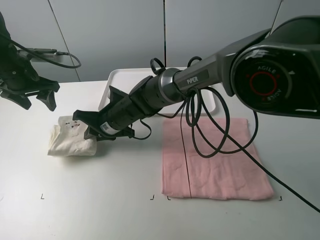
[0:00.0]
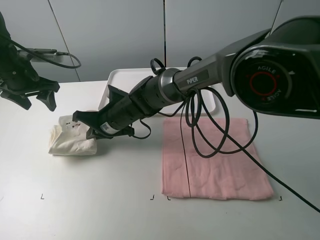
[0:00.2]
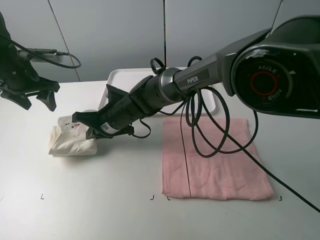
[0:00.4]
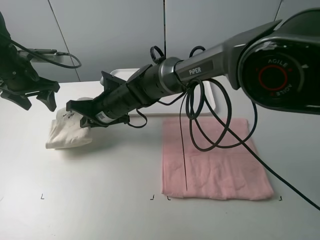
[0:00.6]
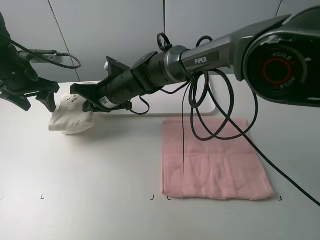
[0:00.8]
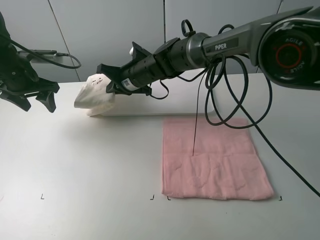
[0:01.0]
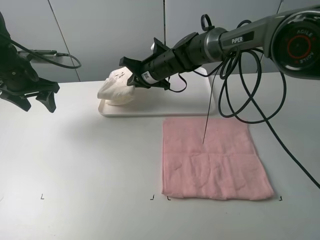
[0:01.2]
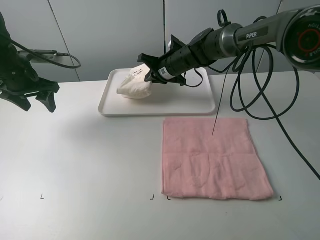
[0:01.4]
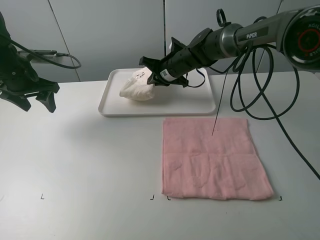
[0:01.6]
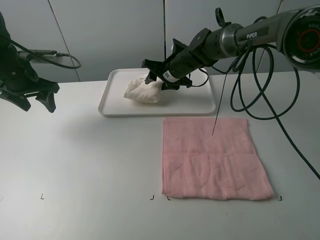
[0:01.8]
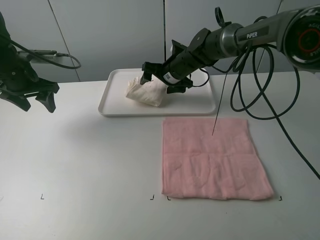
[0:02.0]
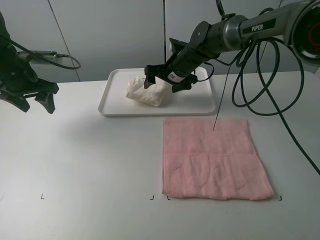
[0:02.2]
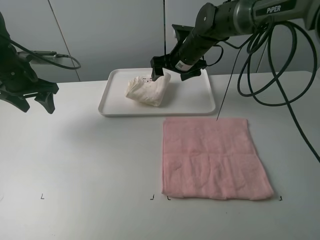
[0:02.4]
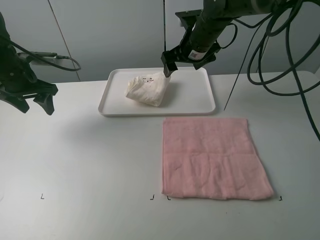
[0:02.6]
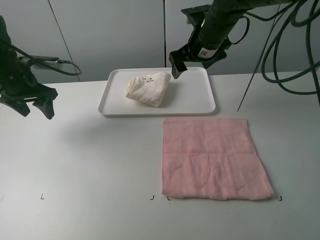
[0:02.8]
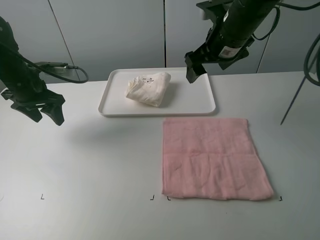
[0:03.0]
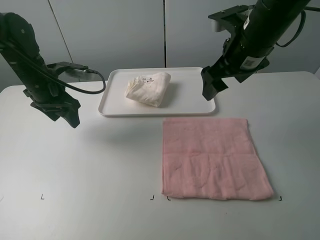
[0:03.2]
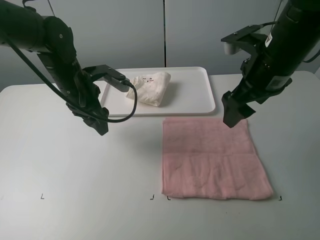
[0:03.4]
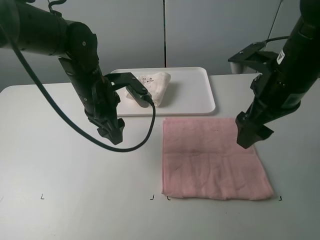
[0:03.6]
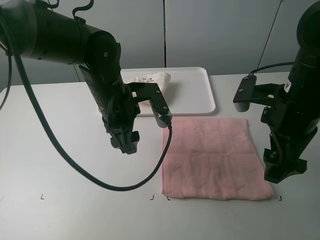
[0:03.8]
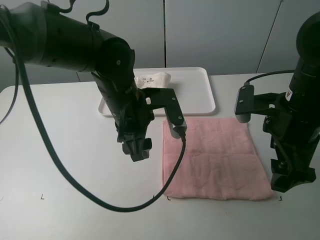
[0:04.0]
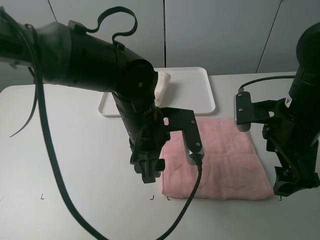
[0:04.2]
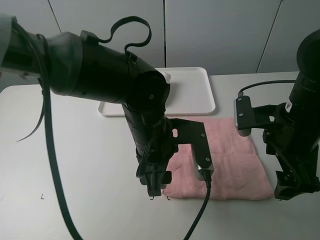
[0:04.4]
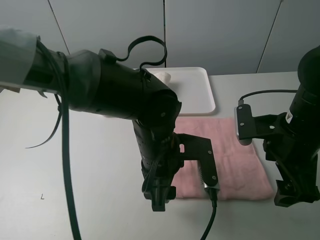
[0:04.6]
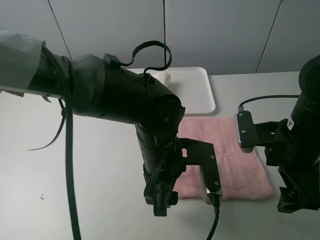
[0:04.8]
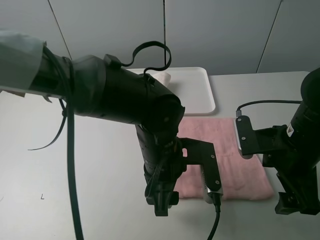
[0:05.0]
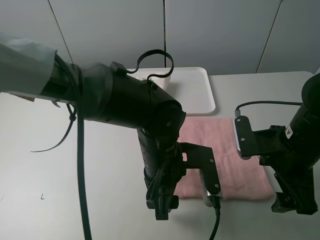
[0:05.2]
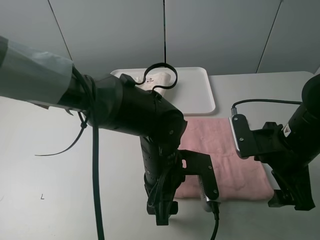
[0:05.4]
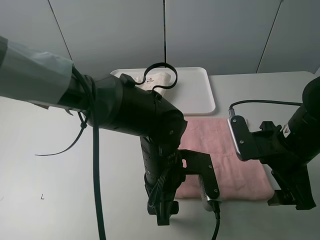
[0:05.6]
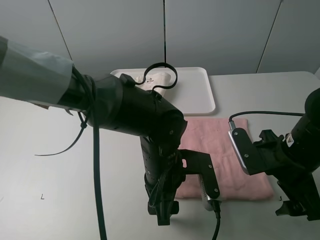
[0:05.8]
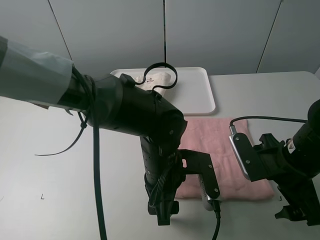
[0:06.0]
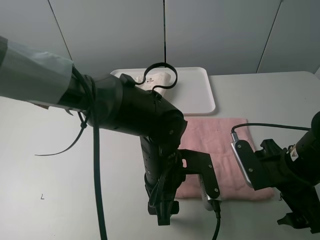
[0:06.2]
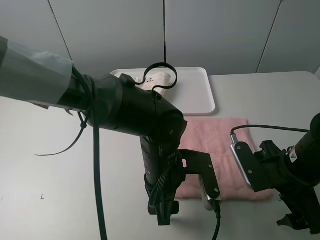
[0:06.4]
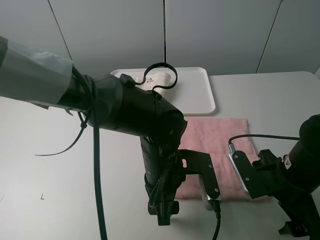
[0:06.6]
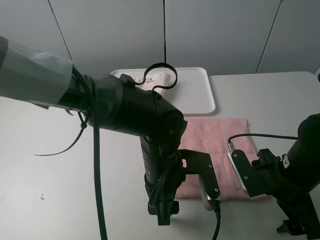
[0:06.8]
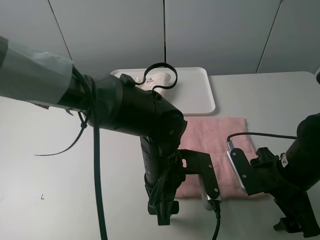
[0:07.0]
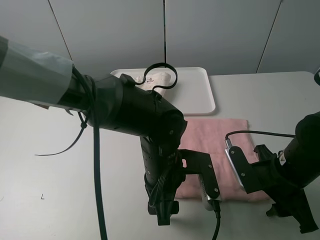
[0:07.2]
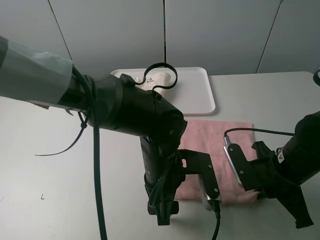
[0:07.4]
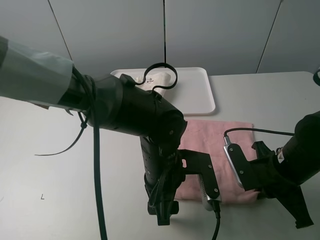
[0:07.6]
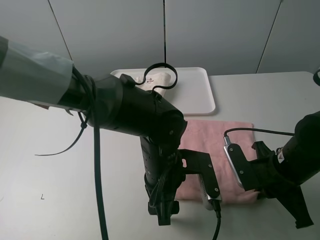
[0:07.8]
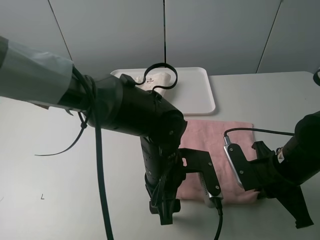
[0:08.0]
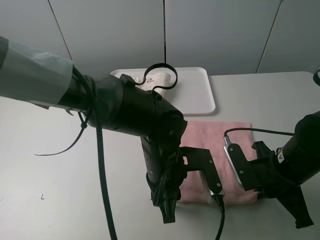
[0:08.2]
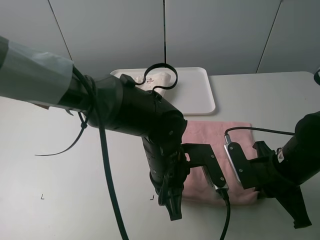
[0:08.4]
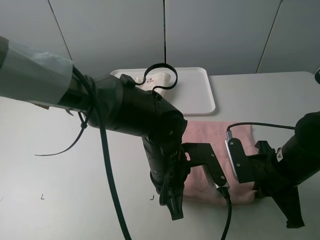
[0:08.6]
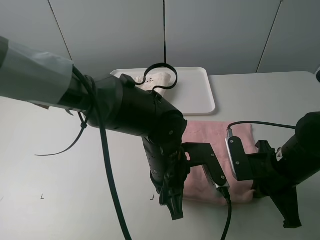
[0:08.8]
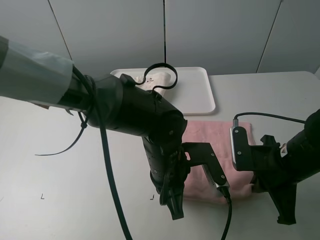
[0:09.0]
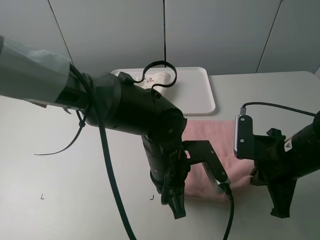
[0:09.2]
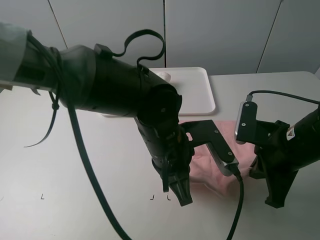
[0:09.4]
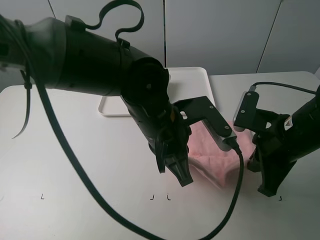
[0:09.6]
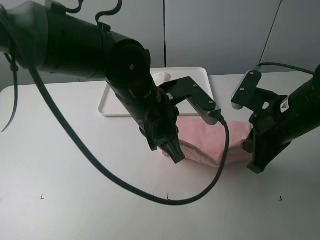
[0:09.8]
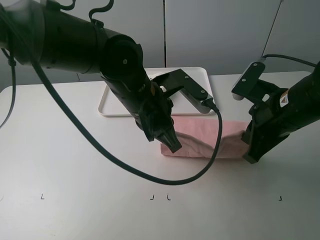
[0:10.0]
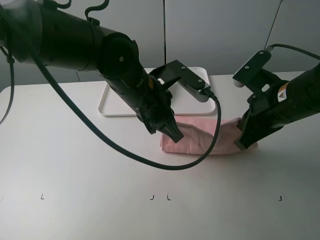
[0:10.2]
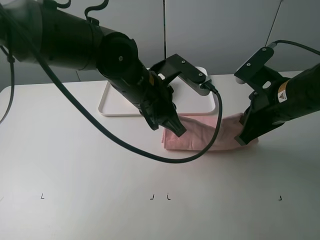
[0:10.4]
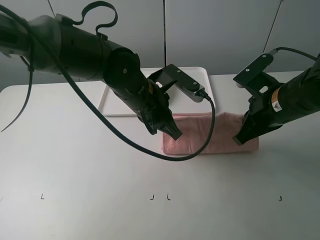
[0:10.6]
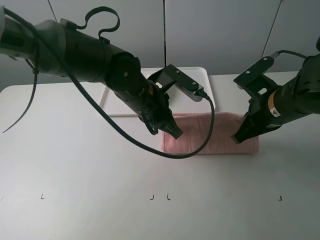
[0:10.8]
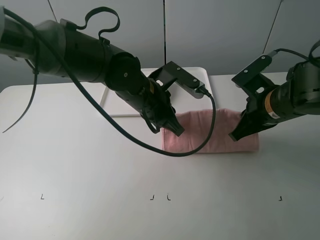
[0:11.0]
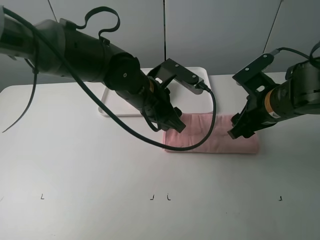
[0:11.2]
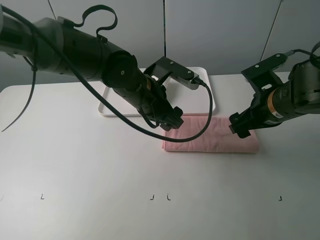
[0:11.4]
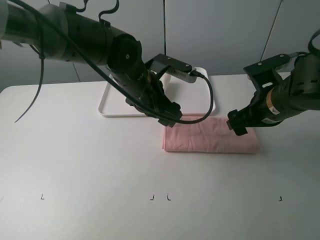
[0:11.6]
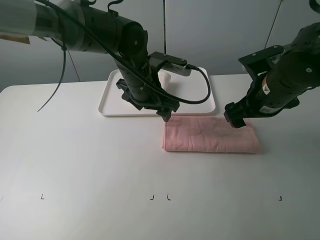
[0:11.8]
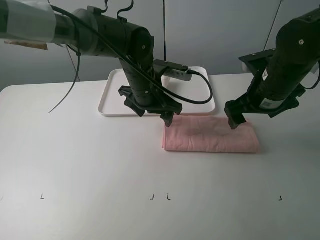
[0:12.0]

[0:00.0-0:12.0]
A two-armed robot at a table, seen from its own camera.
Task of the whole recording: fold one of the towels by two grippers and place it on the tray,then fold another towel by two grippers and place it on the folded towel.
Step, 0:00.0 to 0:02.4: Move the white towel to the plate with the right gripper.
Step, 0:02.6 to 0:08.6: Grasp the pink towel with the left gripper.
Step, 0:08.8 to 0:11.4: Fold the pink towel upwards with the left gripper.
0:00.0 to 0:01.6: The right gripper is displaced to the right and forward by roughly 20 cm.
0:01.6 to 0:03.0: The right gripper goes some 20 cm upward, backward and to the right, and opens.
0:03.0 to 0:04.4: The right gripper goes roughly 15 cm backward, downward and to the right. The left gripper travels to the right and backward by some 30 cm.
0:04.4 to 0:06.0: The left gripper changes place by roughly 5 cm, while the right gripper shifts about 5 cm downward.
0:06.0 to 0:07.6: The right gripper closes its fingers.
0:07.6 to 0:09.0: The left gripper closes its fingers.
0:09.0 to 0:10.4: Both grippers move upward and forward, roughly 10 cm.
0:10.4 to 0:12.0: Both grippers move forward, approximately 5 cm. The left gripper opens its fingers; the right gripper opens up.

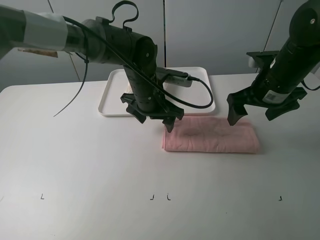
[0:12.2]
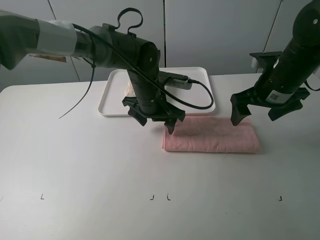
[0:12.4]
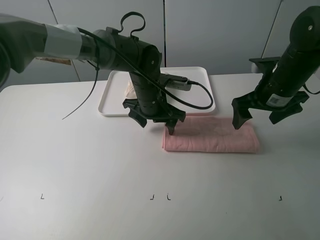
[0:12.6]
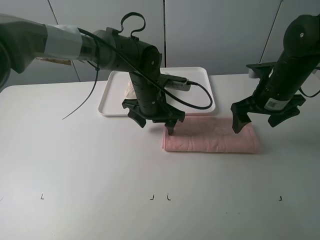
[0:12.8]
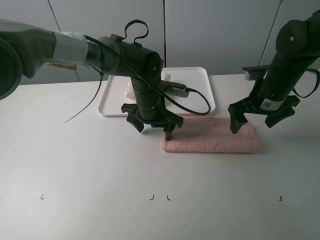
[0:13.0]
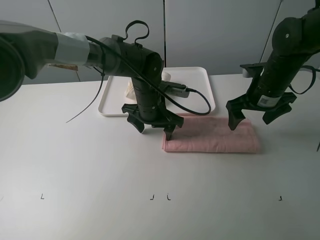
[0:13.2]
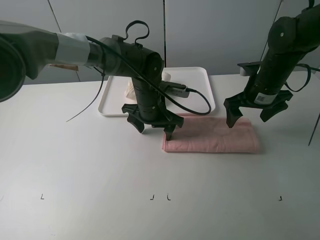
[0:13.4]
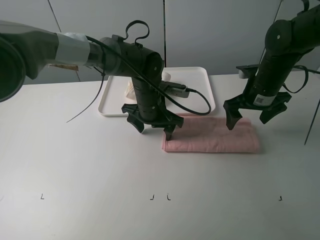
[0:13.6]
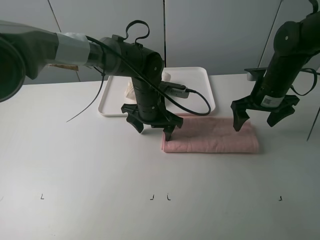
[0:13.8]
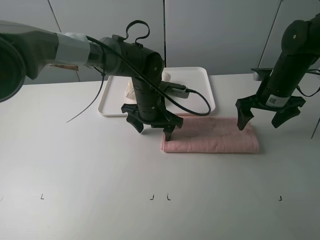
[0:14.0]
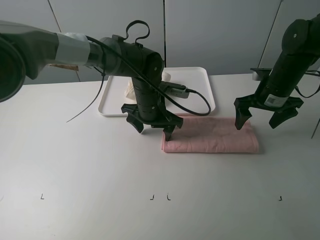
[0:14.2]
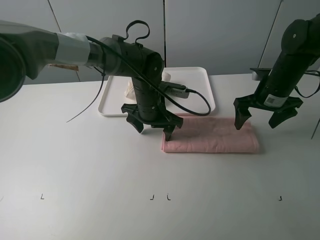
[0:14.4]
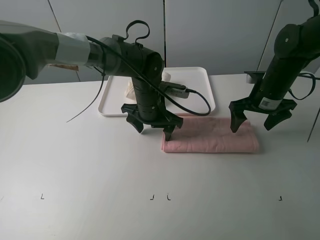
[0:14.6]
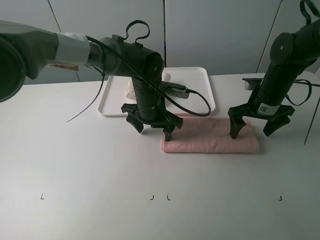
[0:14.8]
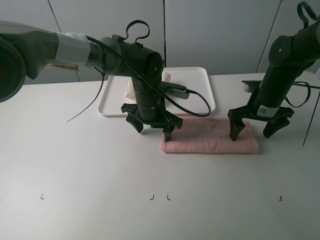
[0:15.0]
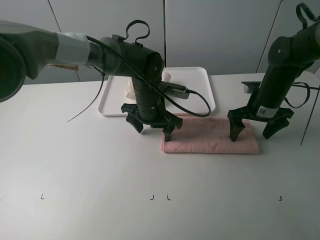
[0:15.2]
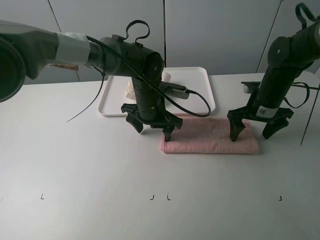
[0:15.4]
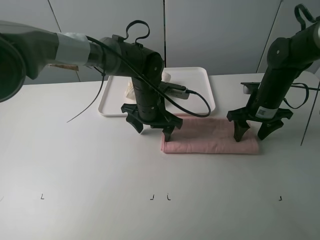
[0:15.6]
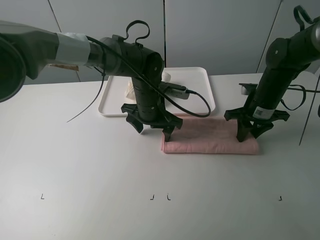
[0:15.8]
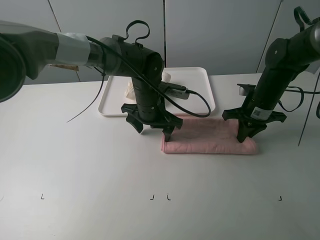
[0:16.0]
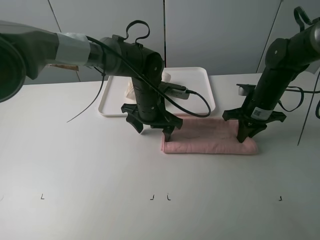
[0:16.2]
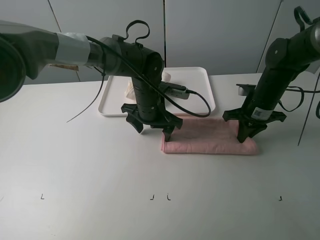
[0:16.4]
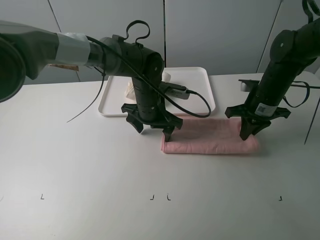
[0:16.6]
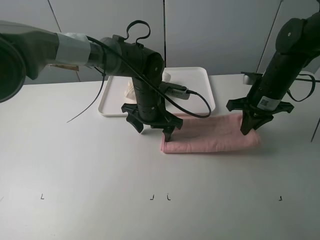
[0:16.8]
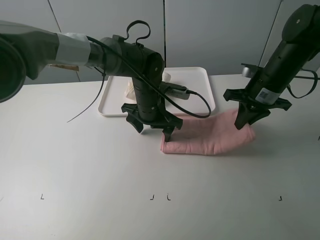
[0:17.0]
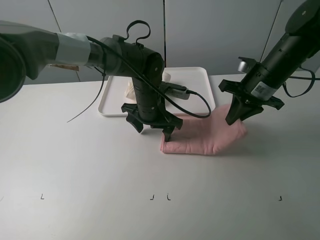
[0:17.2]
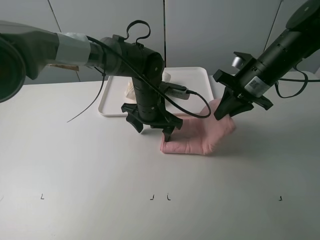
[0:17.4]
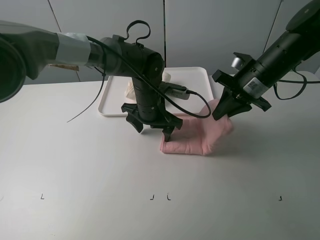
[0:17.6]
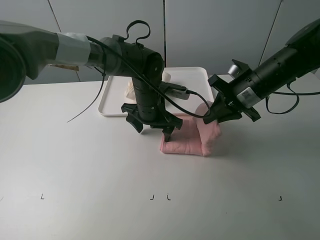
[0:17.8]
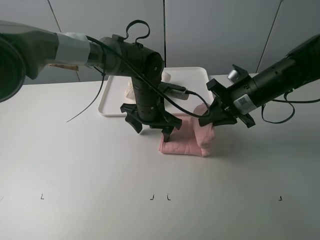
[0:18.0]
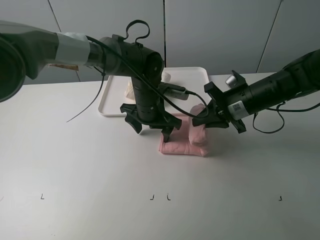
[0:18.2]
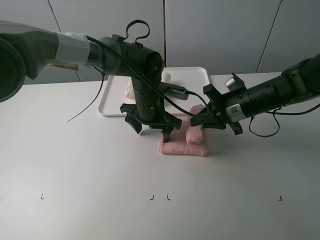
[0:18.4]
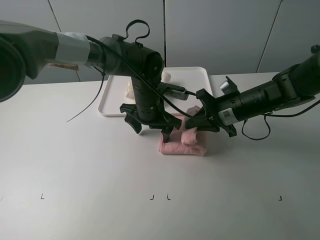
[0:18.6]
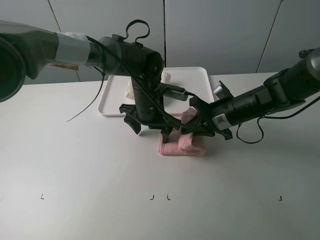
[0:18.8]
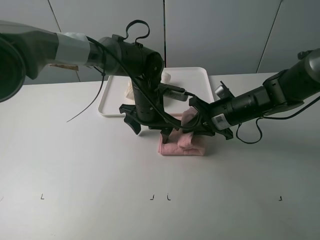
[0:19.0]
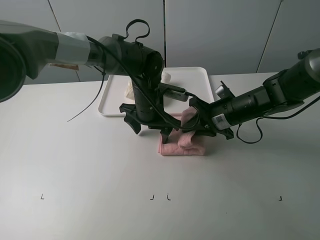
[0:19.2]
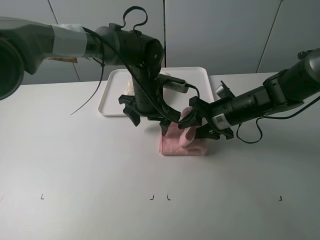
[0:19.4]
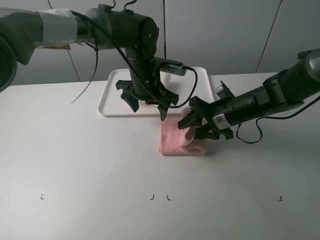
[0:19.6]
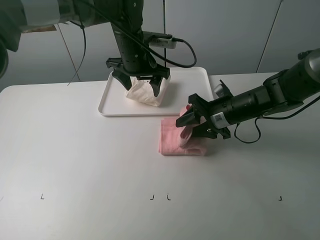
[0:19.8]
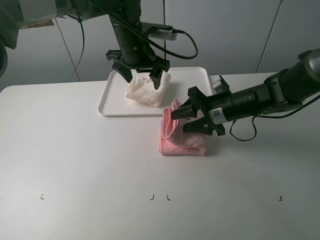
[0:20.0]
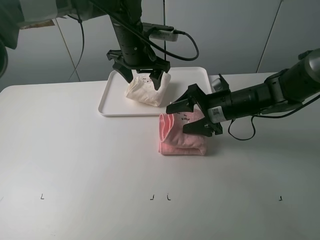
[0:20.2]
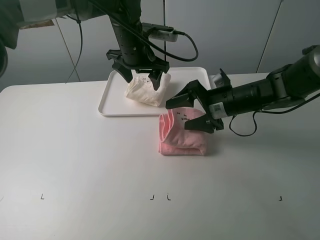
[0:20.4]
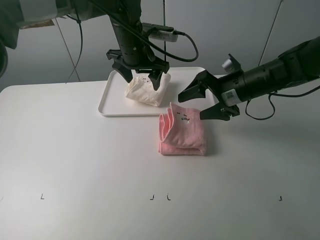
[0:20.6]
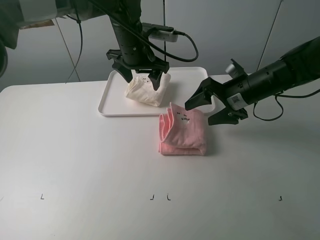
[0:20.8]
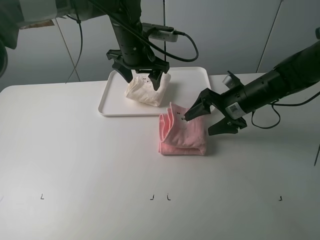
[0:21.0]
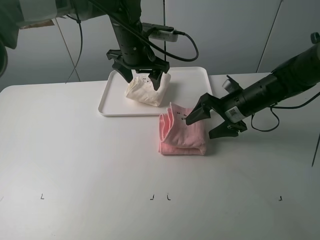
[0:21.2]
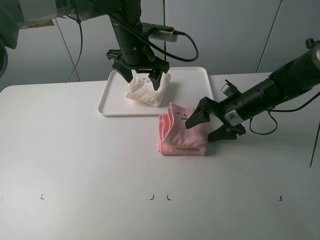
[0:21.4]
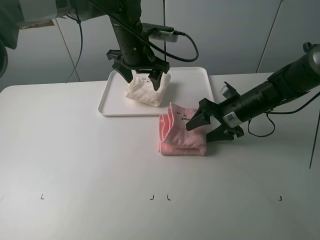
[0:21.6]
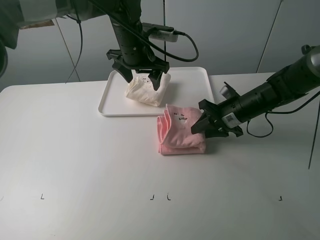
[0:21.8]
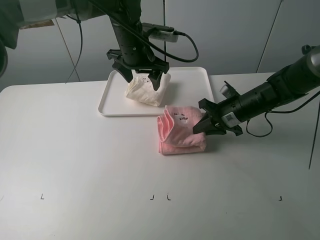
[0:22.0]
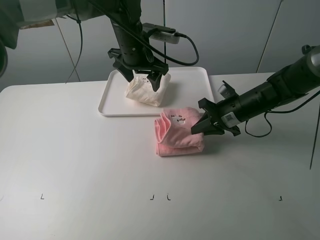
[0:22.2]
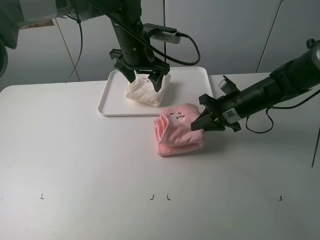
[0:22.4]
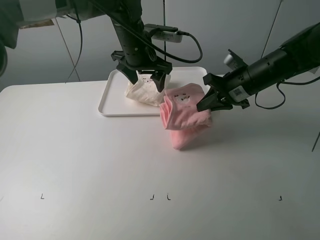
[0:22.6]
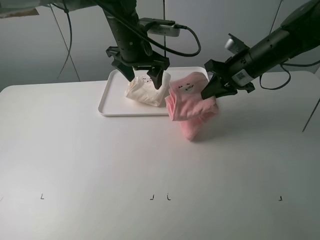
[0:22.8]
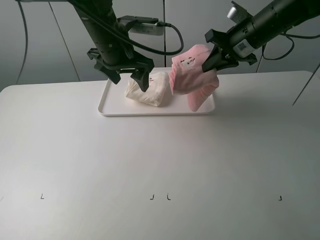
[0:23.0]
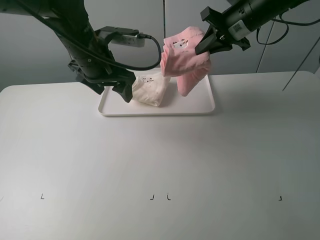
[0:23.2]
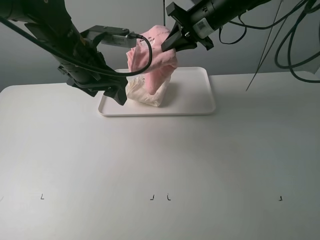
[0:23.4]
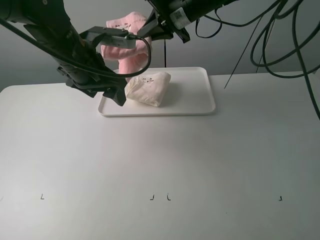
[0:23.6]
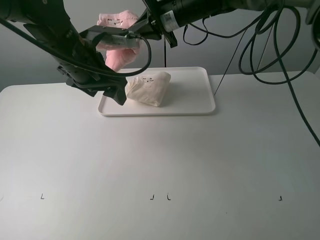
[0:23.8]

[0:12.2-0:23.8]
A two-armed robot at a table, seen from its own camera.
Task of the whole recording: fold one of the towels by two grippers and place it on the tray,then fold another towel by two grippers and place it on the folded towel.
Step, 0:12.2 to 0:13.2: Press the pink towel with the left gripper.
Step, 0:13.4 to 0:16.0: Grasp the pink towel with the right gripper.
Step, 0:16.2 to 0:20.4: Fold the pink towel from right to left with right gripper.
Step, 0:20.6 to 0:21.8: Grasp the pink towel with the right gripper.
0:12.2 to 0:13.6: The right gripper heads forward and downward, covering approximately 5 cm.
0:13.6 to 0:15.0: There are only small adjustments of the grippers.
0:15.0 to 0:16.6: The right gripper closes.
0:16.6 to 0:18.0: The right gripper shifts by some 5 cm.
0:18.0 to 0:19.4: The right gripper shifts some 5 cm downward, and opens.
0:19.4 to 0:21.0: The right gripper opens, while the left gripper moves upward and forward, about 10 cm.
0:21.0 to 0:22.4: The right gripper closes its fingers.
0:22.4 to 0:23.8: The left gripper travels backward and to the left by approximately 15 cm; the right gripper heads to the left, upward and forward, covering some 25 cm.
